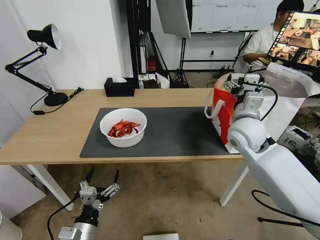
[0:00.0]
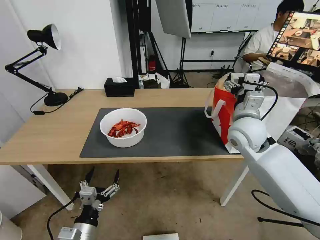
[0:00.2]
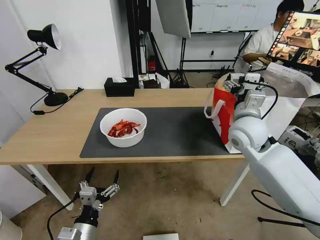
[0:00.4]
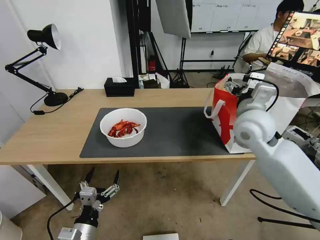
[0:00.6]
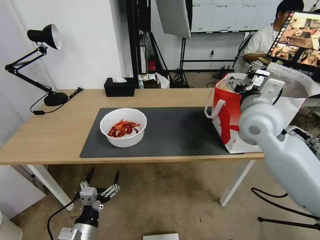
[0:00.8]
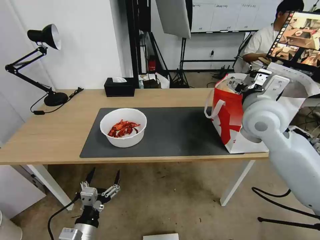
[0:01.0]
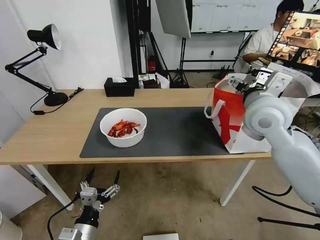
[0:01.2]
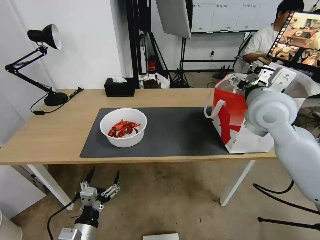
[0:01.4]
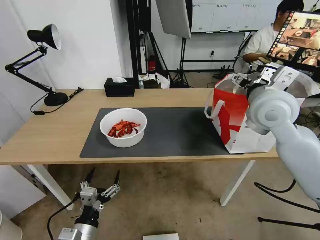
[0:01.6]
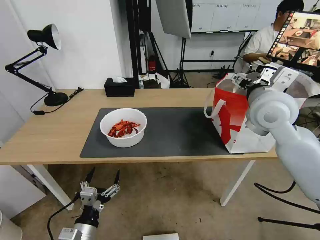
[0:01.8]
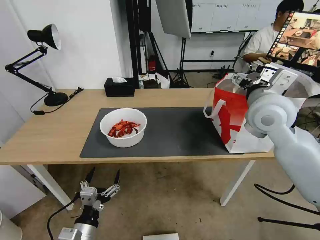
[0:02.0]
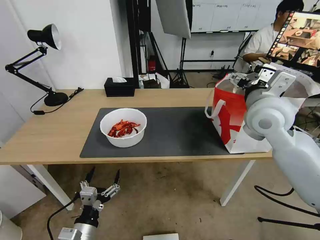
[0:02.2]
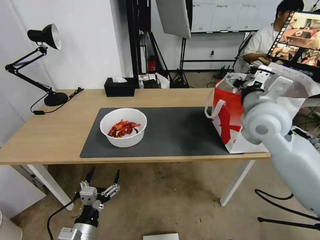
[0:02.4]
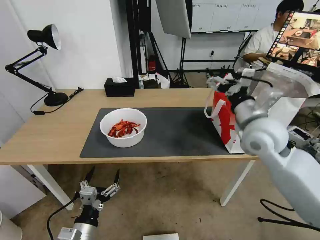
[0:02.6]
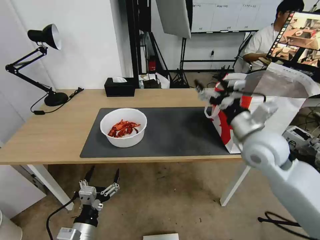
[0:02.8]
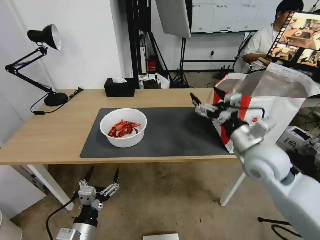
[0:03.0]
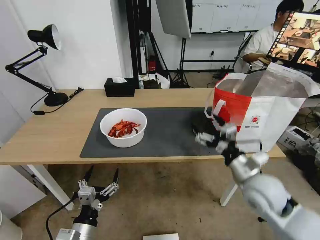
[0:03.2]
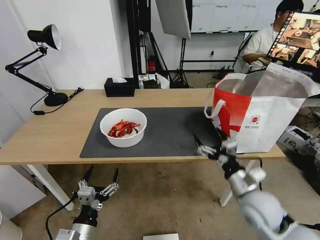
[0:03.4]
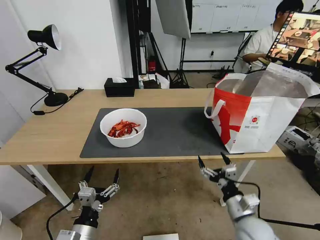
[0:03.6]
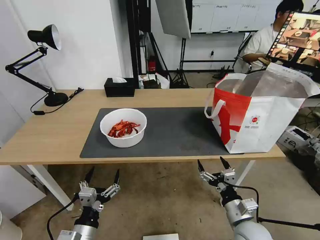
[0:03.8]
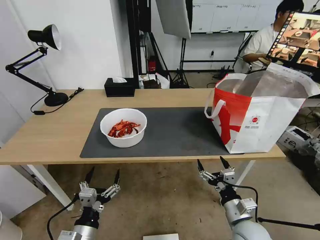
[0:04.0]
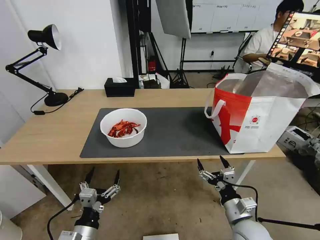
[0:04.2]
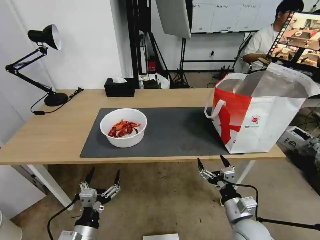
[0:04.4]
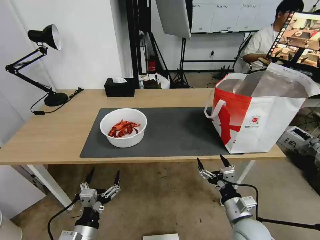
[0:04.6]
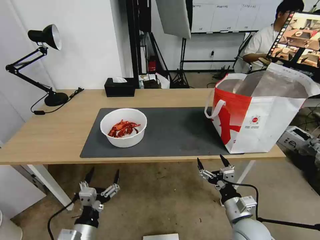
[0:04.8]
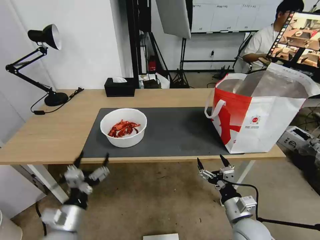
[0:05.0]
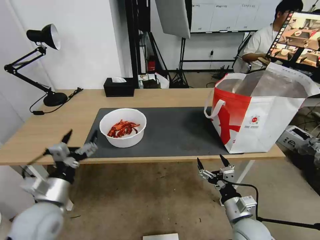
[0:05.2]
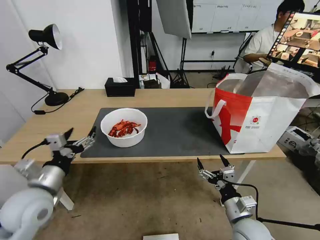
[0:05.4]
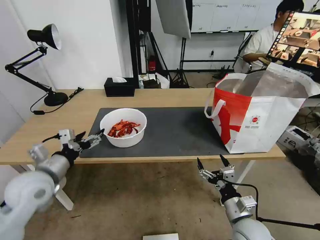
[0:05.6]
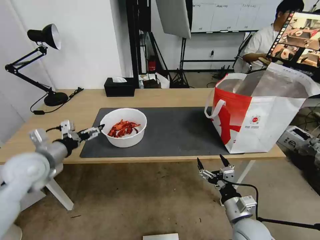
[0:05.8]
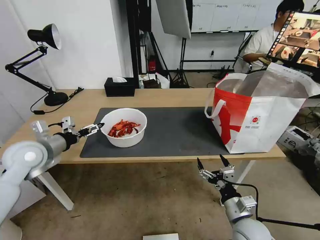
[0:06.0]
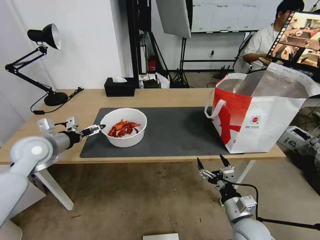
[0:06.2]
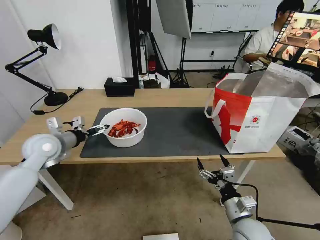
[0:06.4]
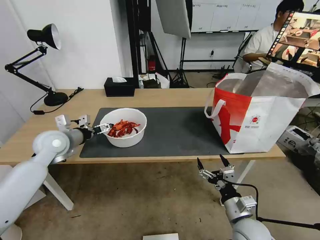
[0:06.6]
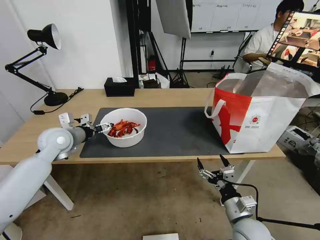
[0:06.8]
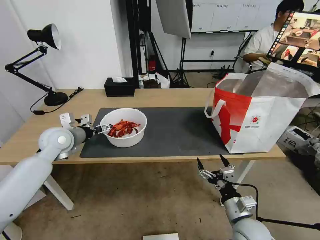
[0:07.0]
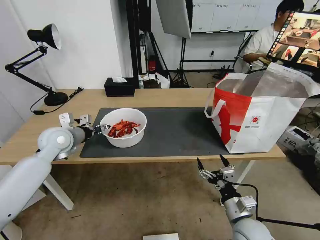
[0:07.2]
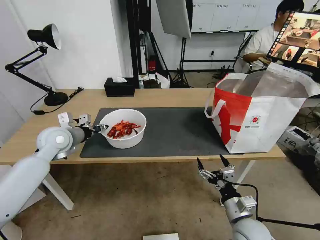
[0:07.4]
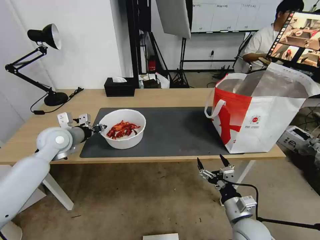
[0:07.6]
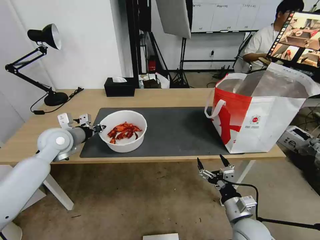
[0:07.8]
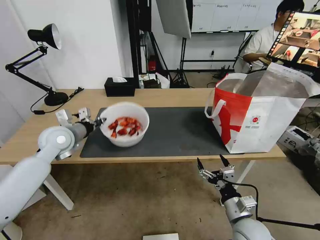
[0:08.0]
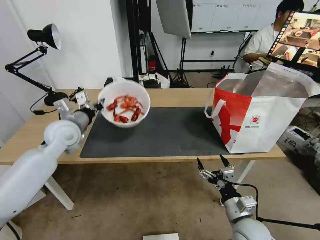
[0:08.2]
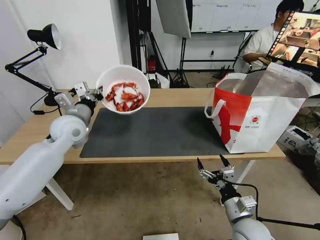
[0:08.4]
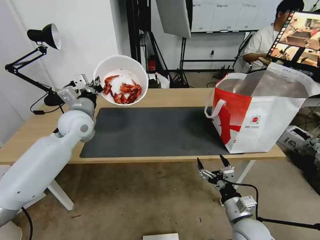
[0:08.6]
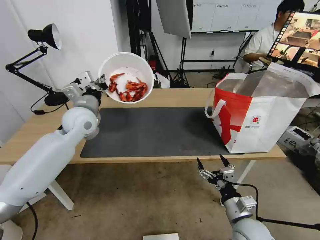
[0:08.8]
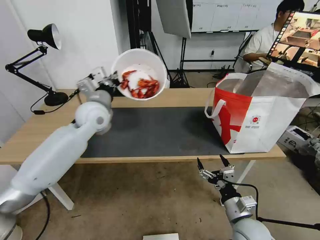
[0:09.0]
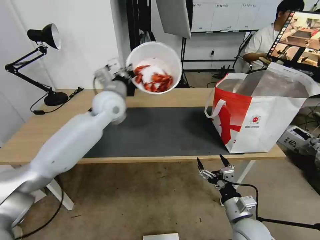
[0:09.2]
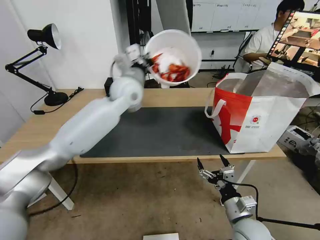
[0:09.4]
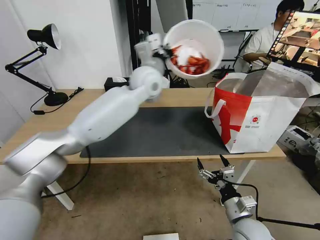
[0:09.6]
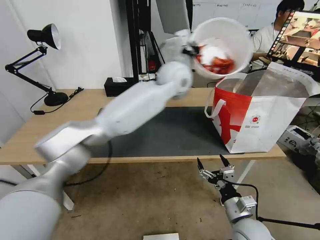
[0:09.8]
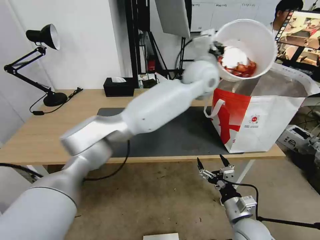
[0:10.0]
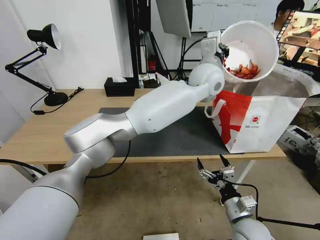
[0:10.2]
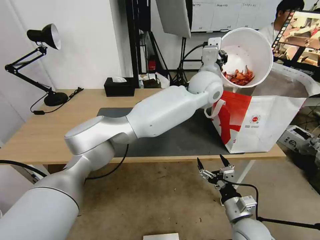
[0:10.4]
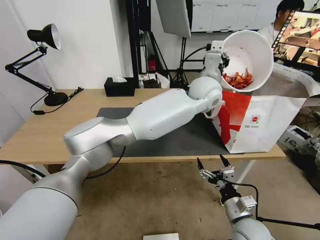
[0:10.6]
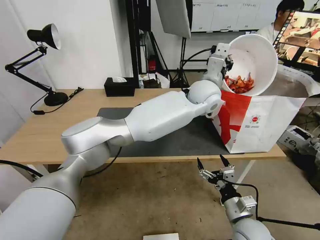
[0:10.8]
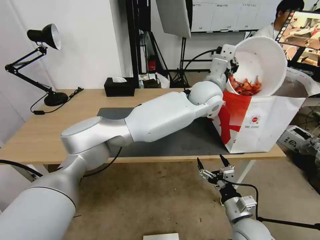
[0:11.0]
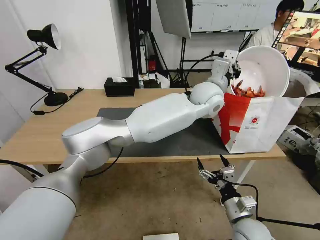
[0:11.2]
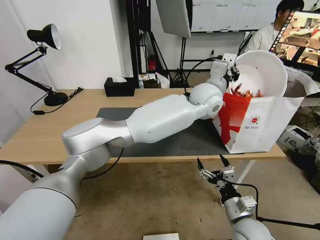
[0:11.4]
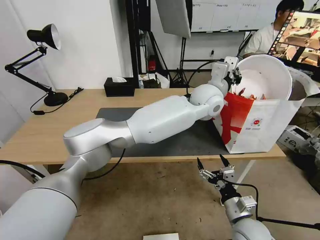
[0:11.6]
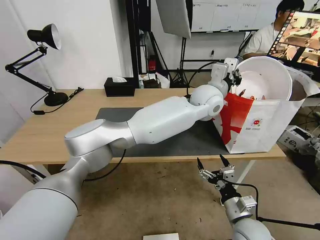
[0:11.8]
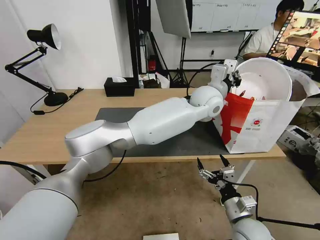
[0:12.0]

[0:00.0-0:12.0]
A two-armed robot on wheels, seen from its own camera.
Task of the whole recording: Pick up the trash from the table and place it into the takeout bag.
0:00.0 to 0:01.6: The right gripper moves upward, some 10 cm.
0:01.6 to 0:03.0: The right gripper is displaced downward and backward by roughly 15 cm.
0:03.0 to 0:04.4: The right gripper is displaced downward and backward by approximately 25 cm.
0:04.4 to 0:06.0: The left gripper moves forward, upward and to the left, approximately 35 cm.
0:06.0 to 0:07.6: The left gripper is displaced forward by about 5 cm, and closes up.
0:07.6 to 0:09.0: The left gripper travels to the right and upward by approximately 15 cm.
0:09.0 to 0:10.4: The left gripper shifts about 35 cm to the right.
0:10.4 to 0:12.0: There are only small adjustments of the grippers.

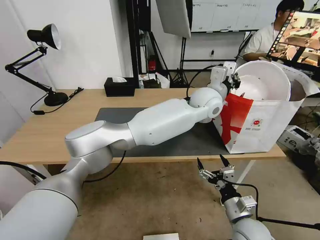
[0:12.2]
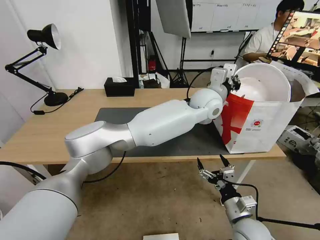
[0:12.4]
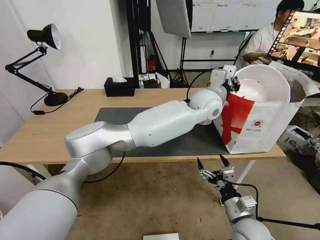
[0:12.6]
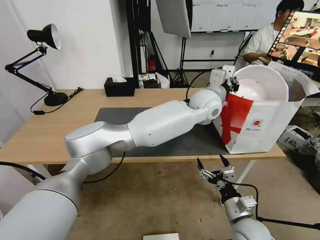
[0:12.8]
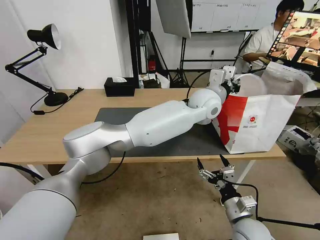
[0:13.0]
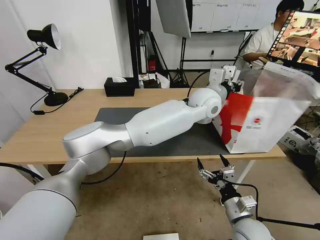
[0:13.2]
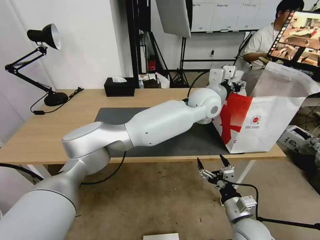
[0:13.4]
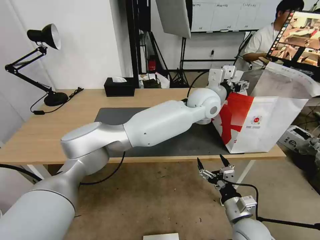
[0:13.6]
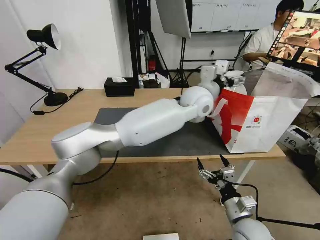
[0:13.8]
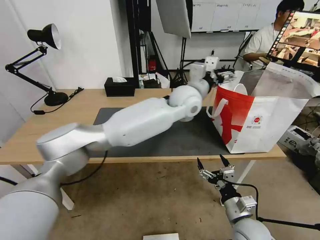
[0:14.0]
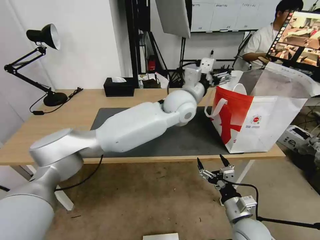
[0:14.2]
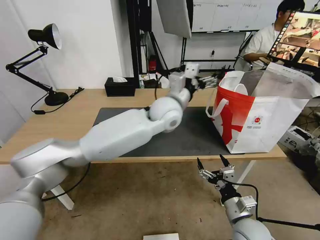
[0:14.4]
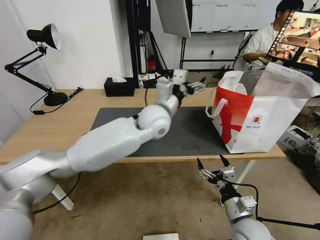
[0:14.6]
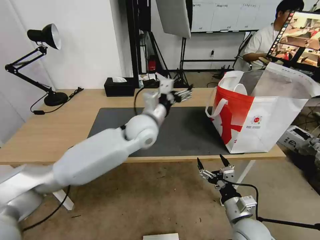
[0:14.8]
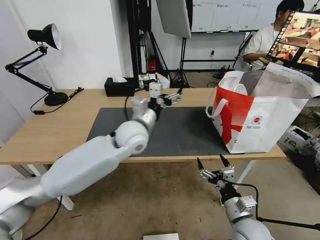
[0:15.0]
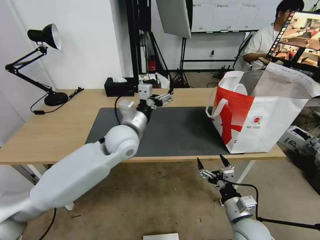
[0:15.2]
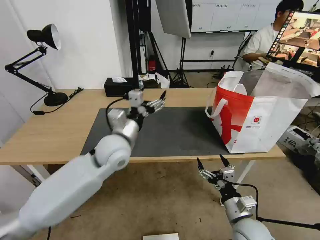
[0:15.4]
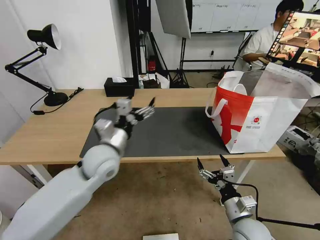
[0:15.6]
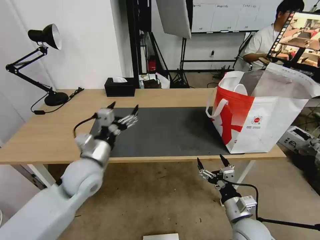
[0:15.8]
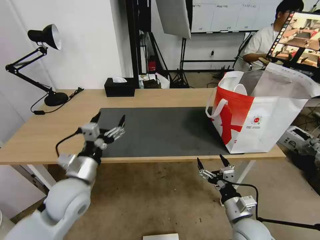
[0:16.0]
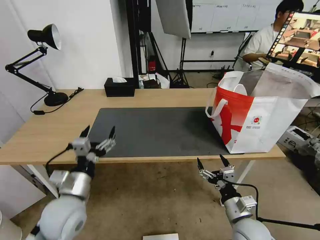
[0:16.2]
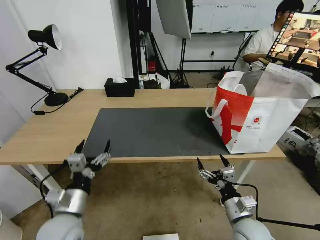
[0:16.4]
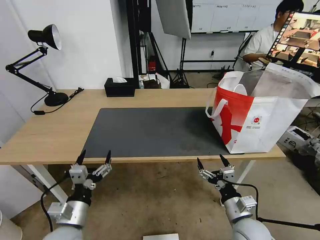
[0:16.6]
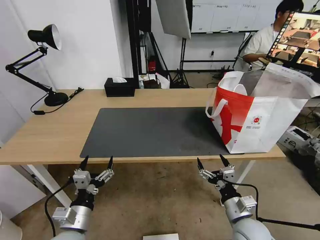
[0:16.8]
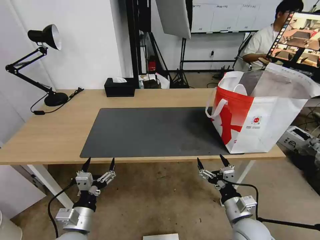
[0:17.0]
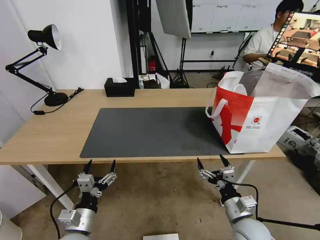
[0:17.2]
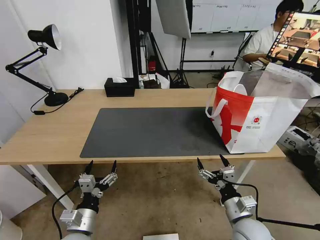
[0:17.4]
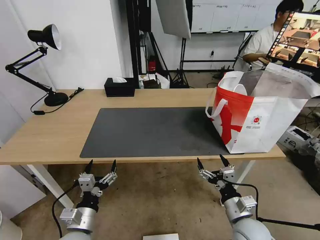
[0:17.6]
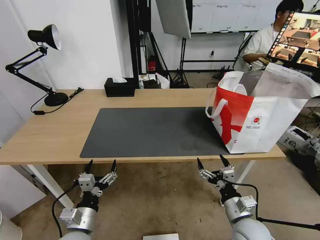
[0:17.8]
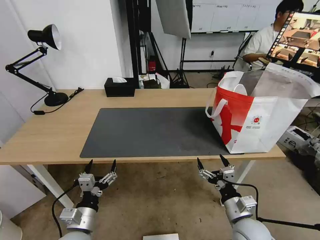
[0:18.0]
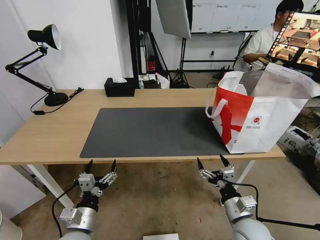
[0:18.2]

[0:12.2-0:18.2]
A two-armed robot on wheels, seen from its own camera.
Task of the whole recording: Pick up the trash from the table and place it into the takeout bag.
0:12.2 to 0:13.8: The left gripper opens its fingers.
0:13.8 to 0:15.2: The left gripper is displaced to the left and backward by approximately 25 cm.
0:15.2 to 0:16.6: The left gripper goes about 30 cm backward, downward and to the left.
0:16.6 to 0:18.2: The grippers make only small movements.

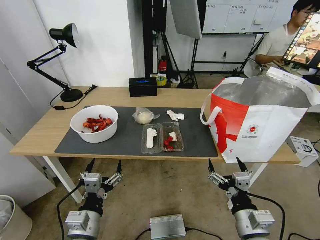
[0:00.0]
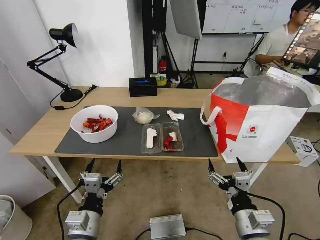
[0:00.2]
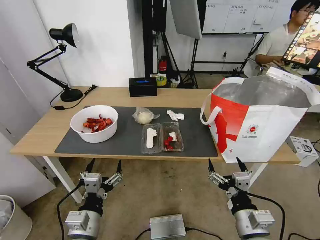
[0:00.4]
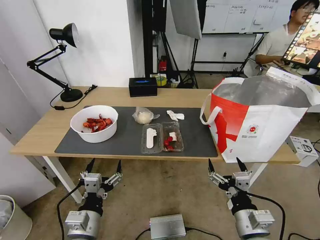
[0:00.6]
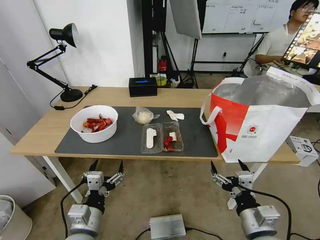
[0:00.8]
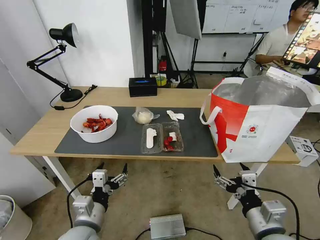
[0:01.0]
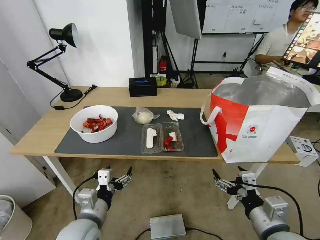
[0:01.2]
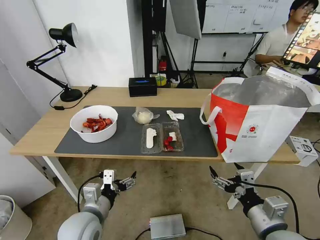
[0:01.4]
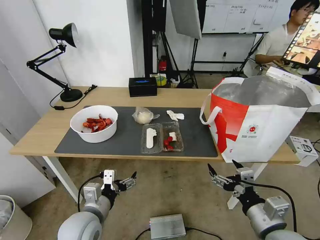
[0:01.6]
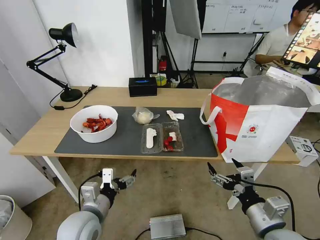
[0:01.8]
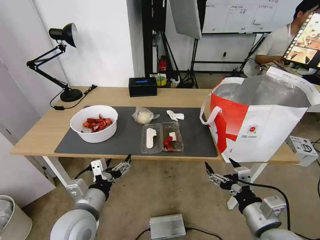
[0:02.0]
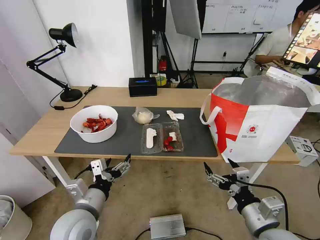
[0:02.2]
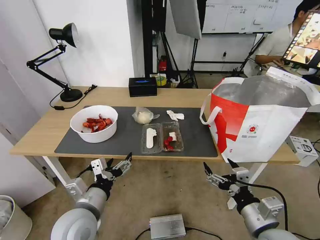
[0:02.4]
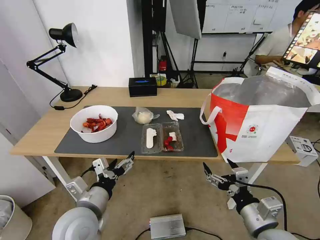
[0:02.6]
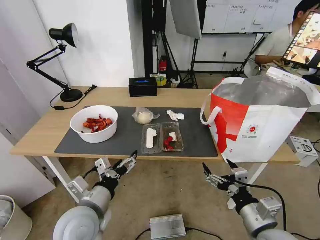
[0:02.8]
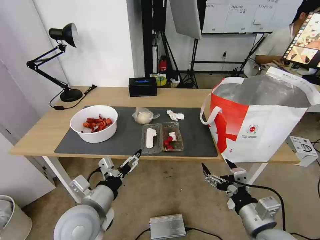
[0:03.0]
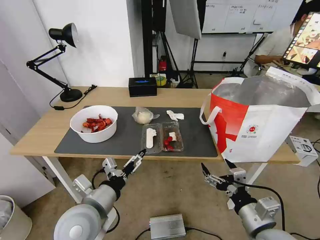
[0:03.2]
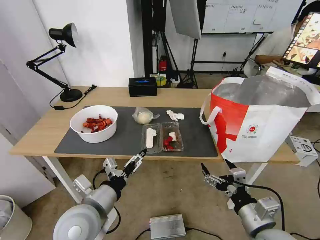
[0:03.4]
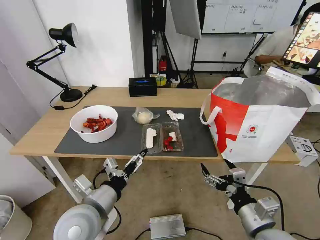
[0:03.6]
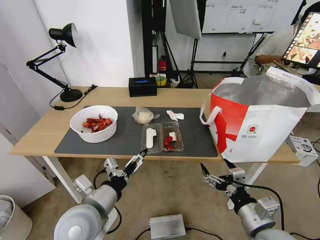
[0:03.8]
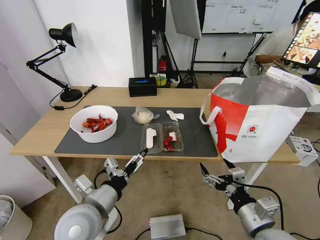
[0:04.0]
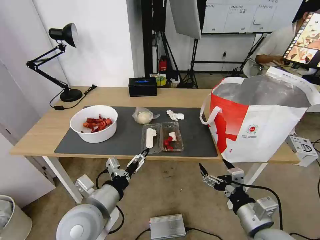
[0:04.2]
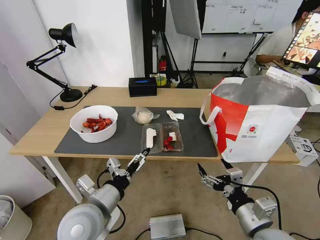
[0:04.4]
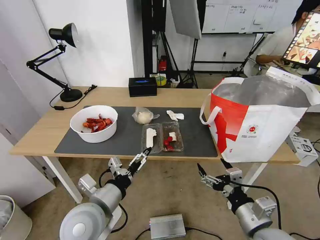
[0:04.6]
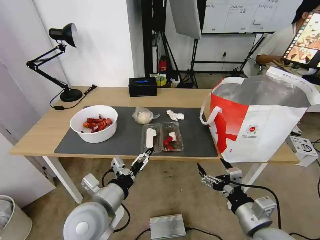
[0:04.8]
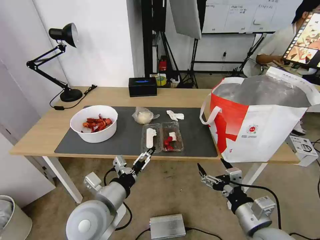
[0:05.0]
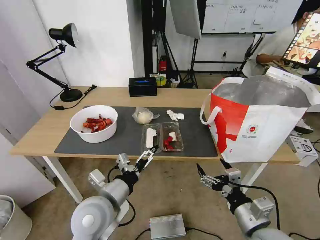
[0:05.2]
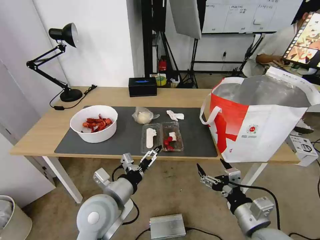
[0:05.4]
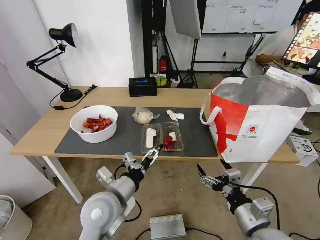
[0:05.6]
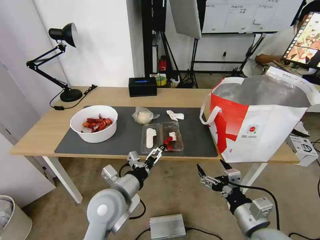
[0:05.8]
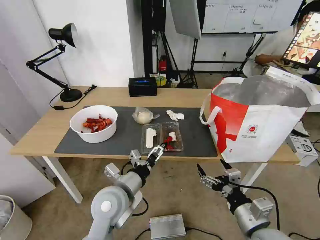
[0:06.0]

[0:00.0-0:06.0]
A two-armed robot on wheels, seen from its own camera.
Task of the whole recording: Pick up the trash from the table and place it into the takeout bag.
0:03.0 to 0:04.4: There are only small adjustments of the grippers.
0:04.4 to 0:06.0: The left gripper is displaced forward by approximately 5 cm.
